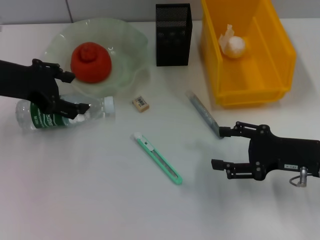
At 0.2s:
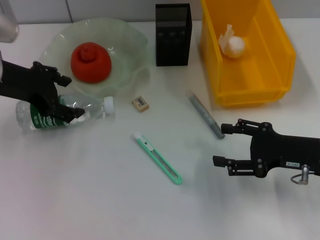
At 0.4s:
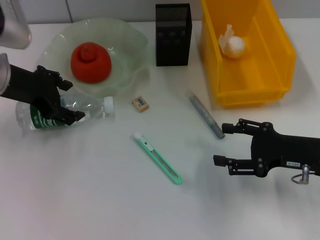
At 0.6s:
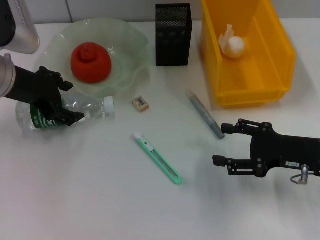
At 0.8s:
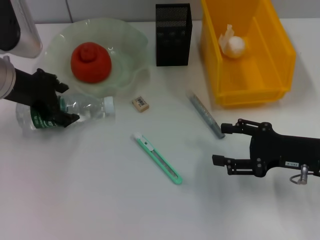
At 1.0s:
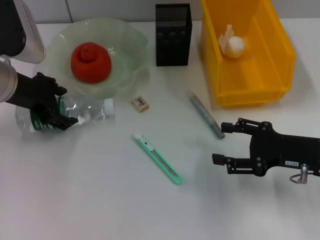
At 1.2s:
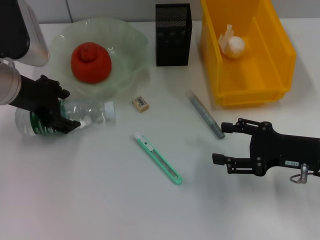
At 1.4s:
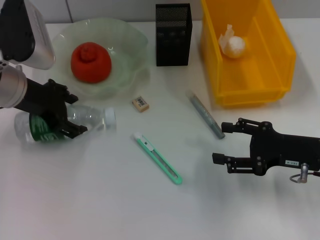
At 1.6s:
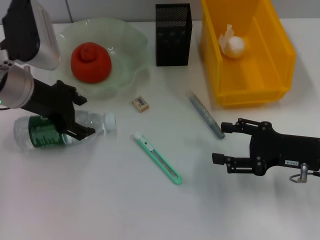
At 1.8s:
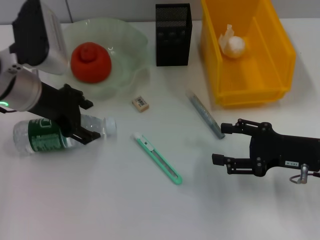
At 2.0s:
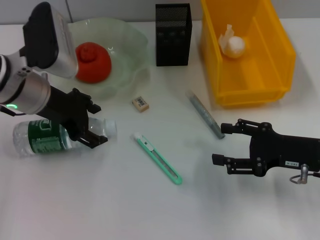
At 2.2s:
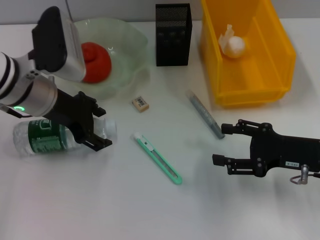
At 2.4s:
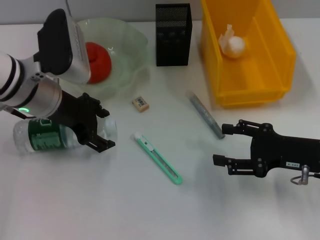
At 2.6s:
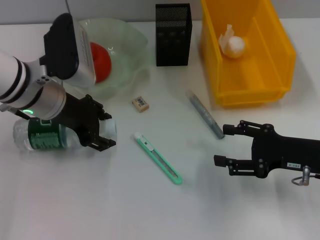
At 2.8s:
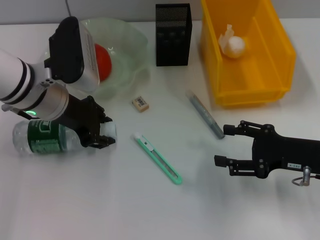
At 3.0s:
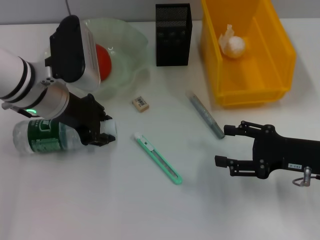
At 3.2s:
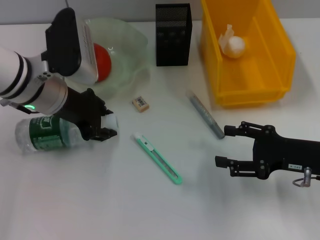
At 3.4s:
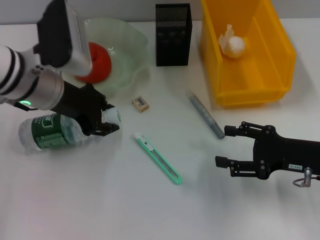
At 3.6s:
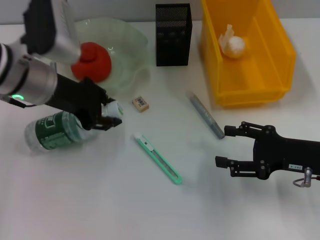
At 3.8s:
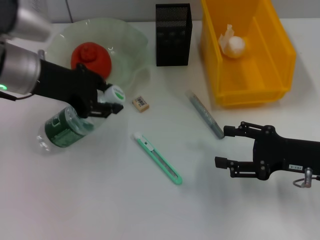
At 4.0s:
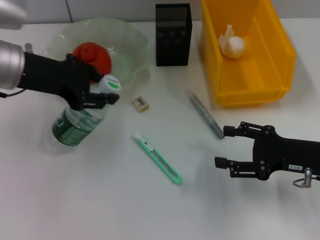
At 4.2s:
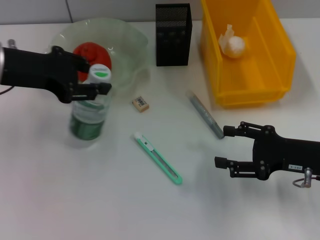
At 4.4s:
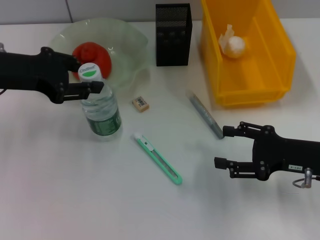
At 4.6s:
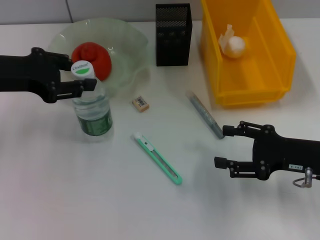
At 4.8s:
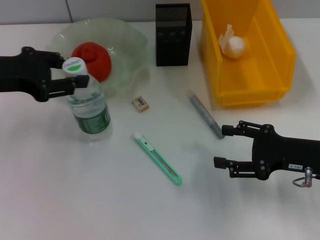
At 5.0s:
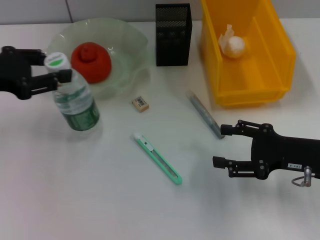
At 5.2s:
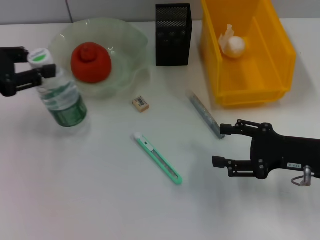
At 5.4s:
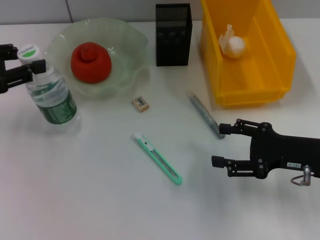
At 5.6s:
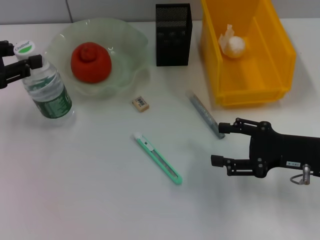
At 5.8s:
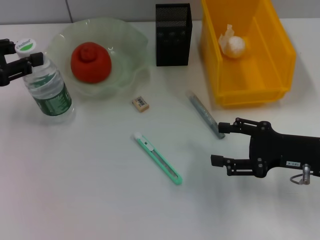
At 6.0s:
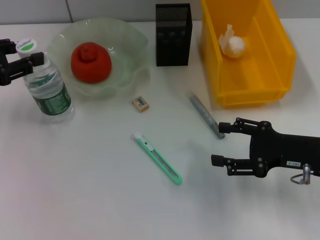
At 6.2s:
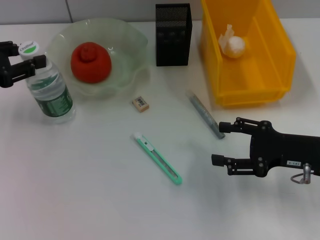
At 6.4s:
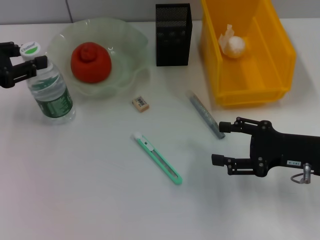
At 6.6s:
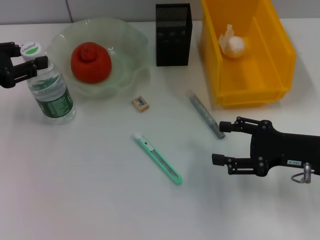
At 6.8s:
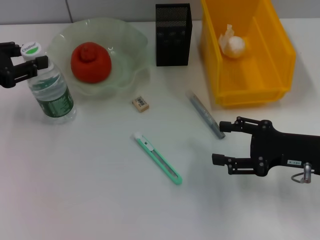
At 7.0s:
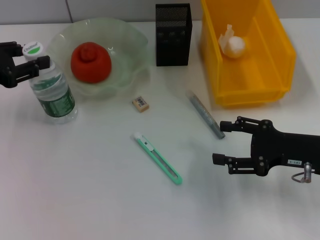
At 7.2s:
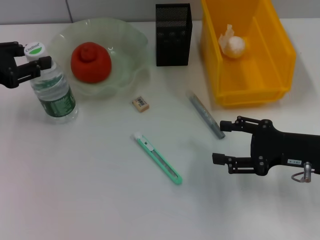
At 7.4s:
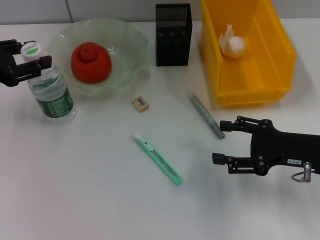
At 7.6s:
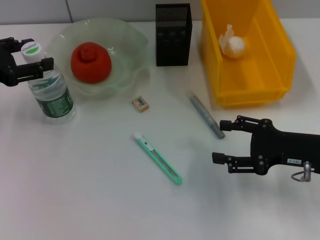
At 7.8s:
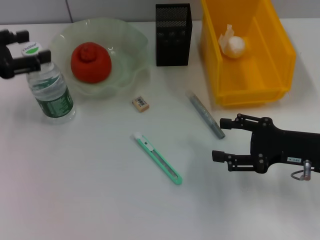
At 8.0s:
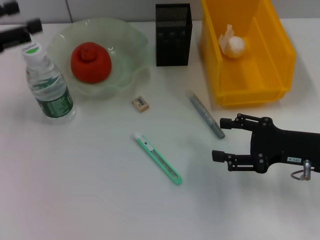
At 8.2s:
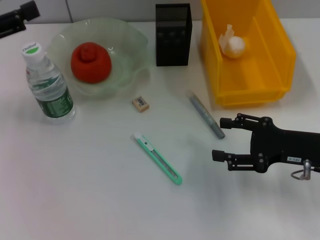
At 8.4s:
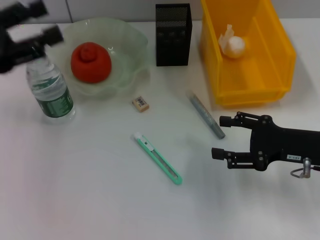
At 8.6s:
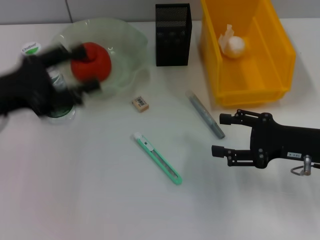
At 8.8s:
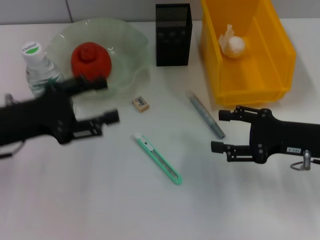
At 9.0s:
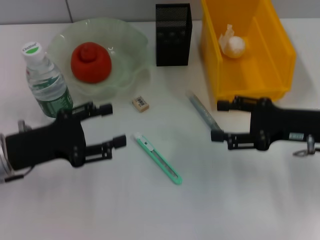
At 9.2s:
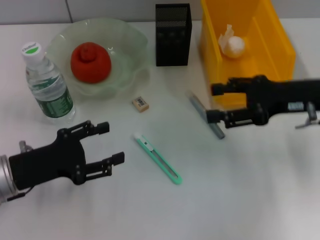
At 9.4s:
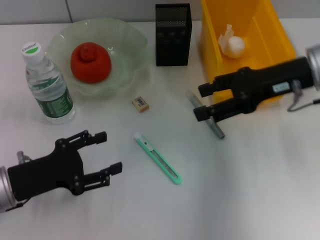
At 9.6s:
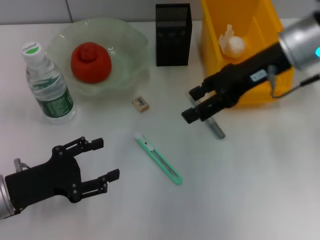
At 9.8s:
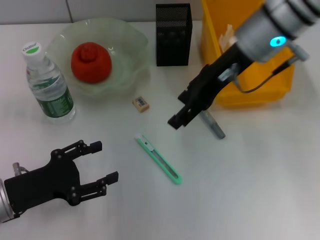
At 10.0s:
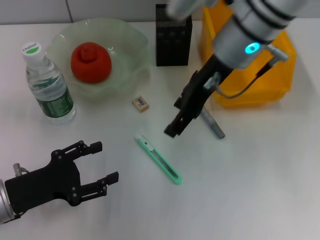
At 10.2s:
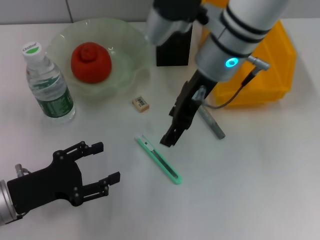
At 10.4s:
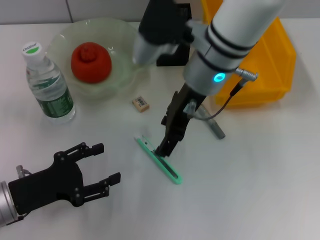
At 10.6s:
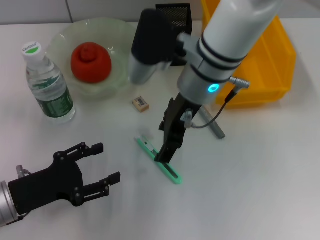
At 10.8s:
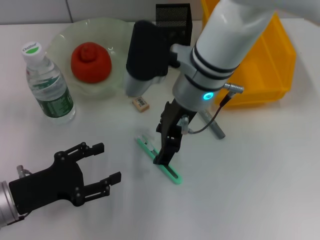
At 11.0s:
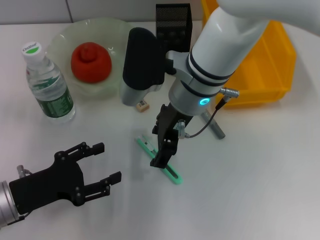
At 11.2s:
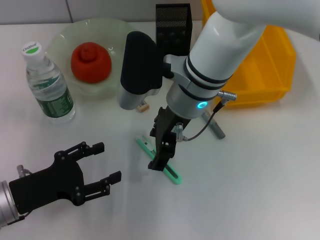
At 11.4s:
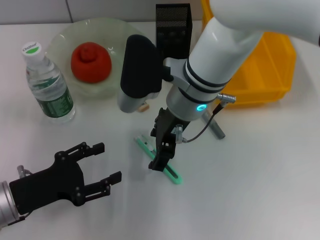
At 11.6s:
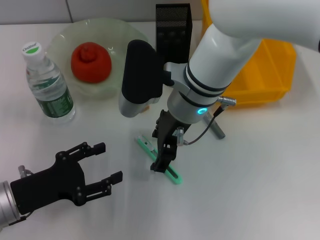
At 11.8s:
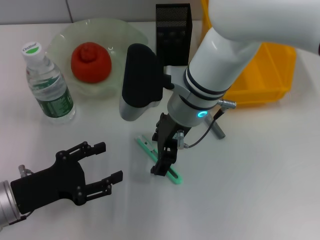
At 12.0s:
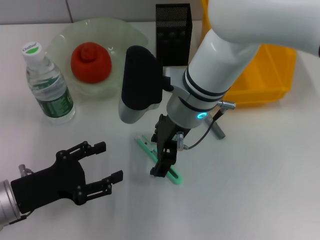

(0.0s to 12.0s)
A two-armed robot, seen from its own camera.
Step, 0.0s - 2.8s: Grab the water bottle with the left hand.
Step, 3.2s - 7.8s: Place the water bottle on the table with the left hand.
0.0s - 1.6s: The left gripper changes place by approximately 5 cm.
1.6s - 3.0s: The left gripper closes its fingers.
3.0s - 4.4s: The left gripper heads to the left and upward, covering approximately 10 cm.
4.4s - 6.0s: The left gripper travels to the left by approximately 10 cm.
6.0s - 7.6s: Neither gripper changes place.
7.6s - 9.0s: The left gripper travels downward, to the right and backward by some 10 cm.
9.0s - 10.4s: The left gripper moves downward and backward, roughly 5 cm. Meanwhile the right gripper is displaced to the left and upward by roughly 25 cm.
10.4s - 12.0s: The right gripper changes place by roughly 5 cm.

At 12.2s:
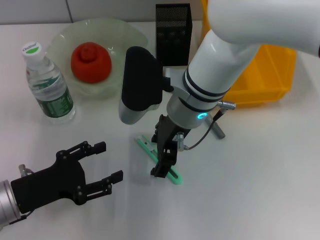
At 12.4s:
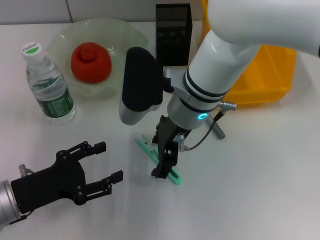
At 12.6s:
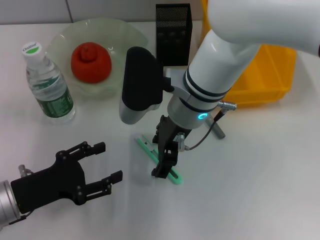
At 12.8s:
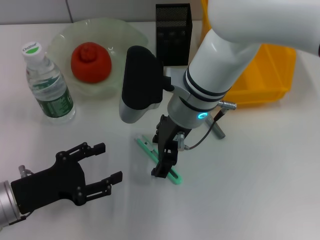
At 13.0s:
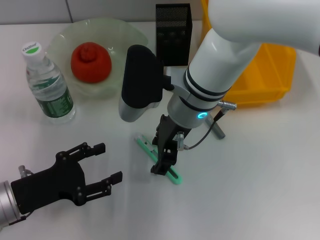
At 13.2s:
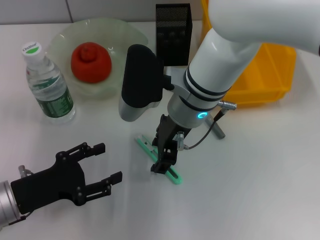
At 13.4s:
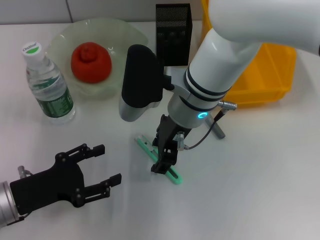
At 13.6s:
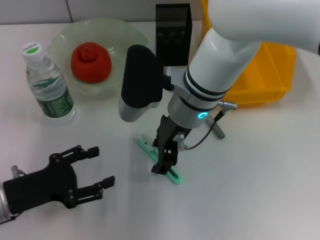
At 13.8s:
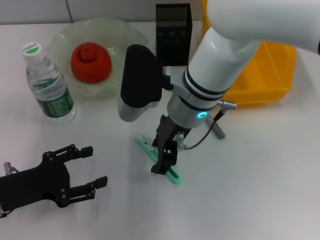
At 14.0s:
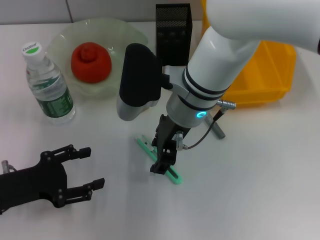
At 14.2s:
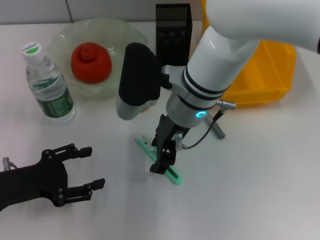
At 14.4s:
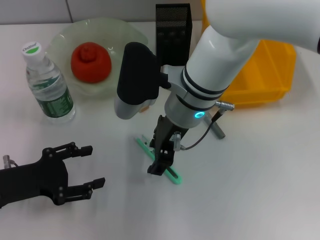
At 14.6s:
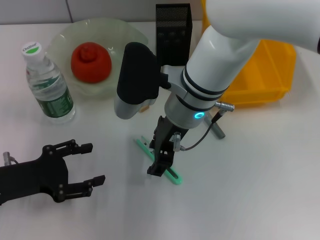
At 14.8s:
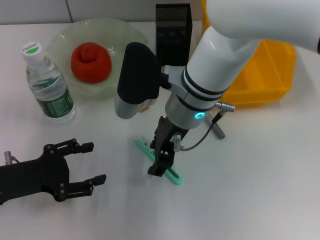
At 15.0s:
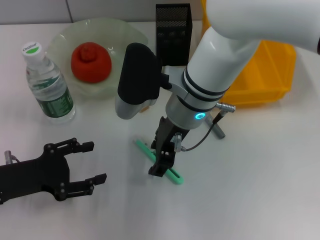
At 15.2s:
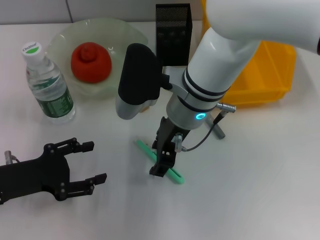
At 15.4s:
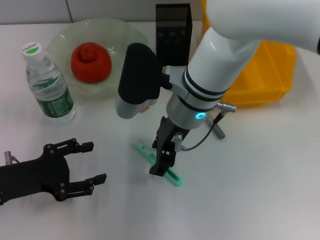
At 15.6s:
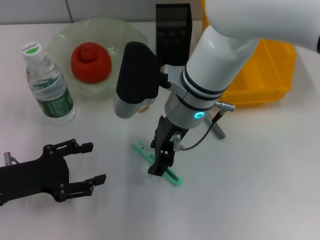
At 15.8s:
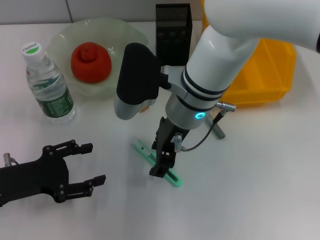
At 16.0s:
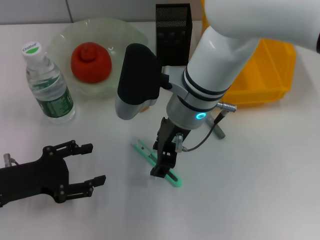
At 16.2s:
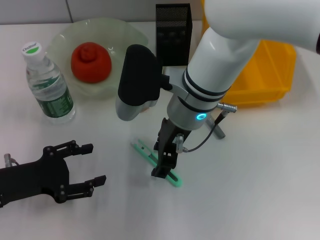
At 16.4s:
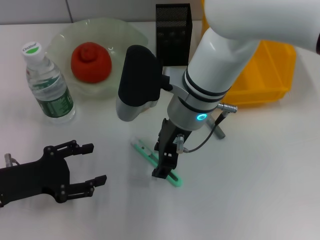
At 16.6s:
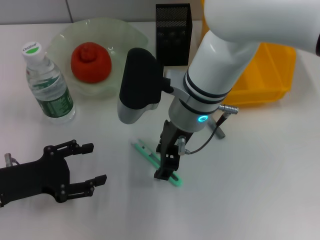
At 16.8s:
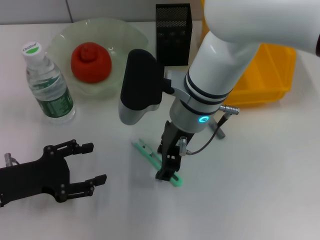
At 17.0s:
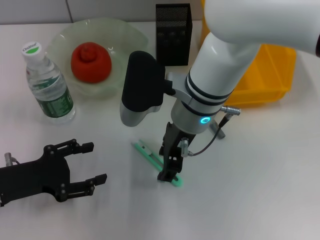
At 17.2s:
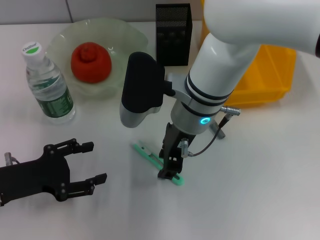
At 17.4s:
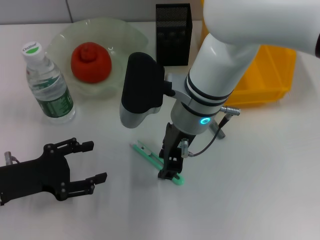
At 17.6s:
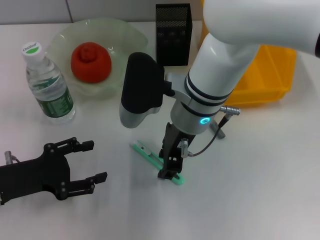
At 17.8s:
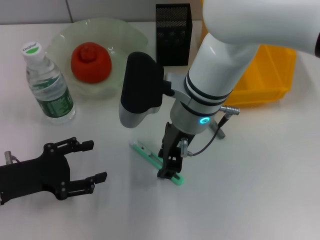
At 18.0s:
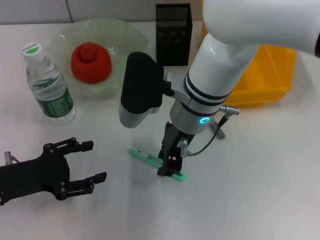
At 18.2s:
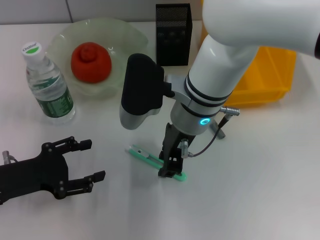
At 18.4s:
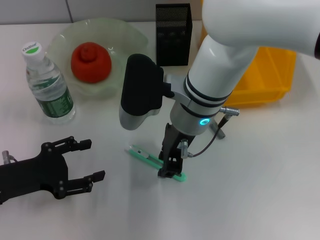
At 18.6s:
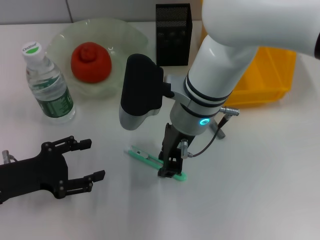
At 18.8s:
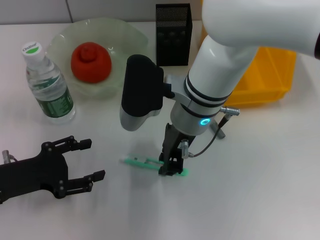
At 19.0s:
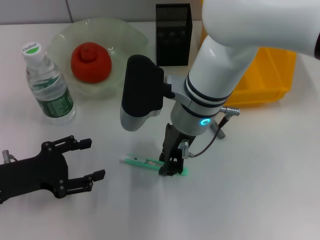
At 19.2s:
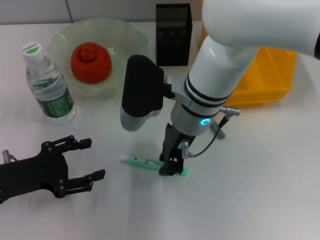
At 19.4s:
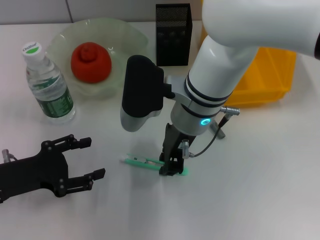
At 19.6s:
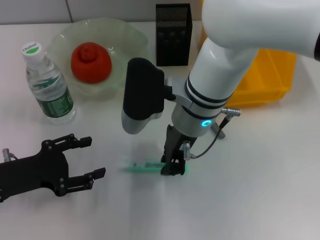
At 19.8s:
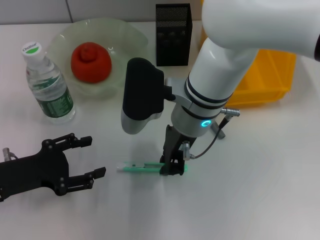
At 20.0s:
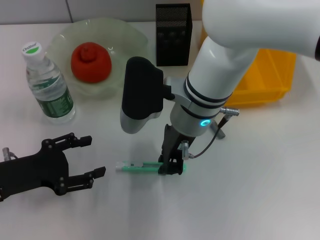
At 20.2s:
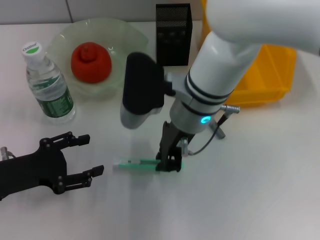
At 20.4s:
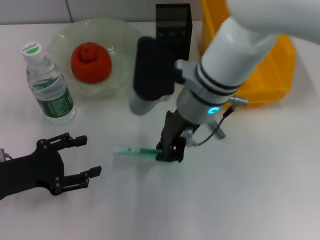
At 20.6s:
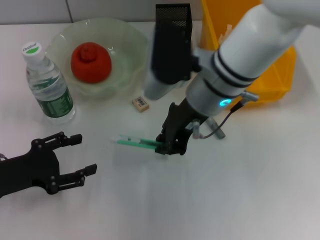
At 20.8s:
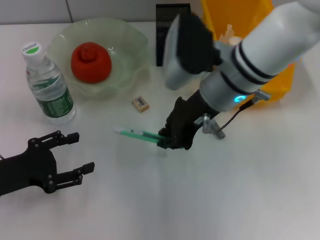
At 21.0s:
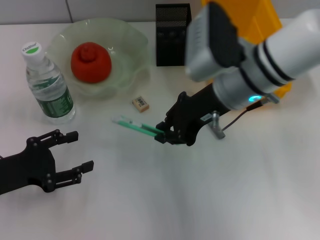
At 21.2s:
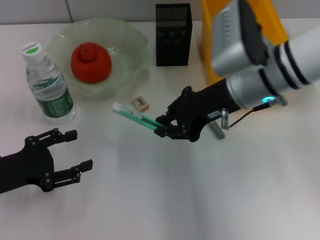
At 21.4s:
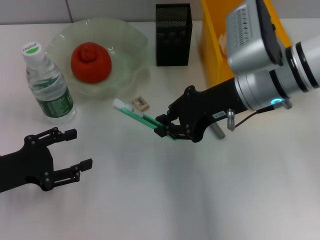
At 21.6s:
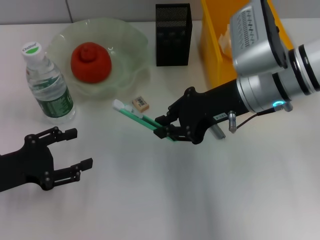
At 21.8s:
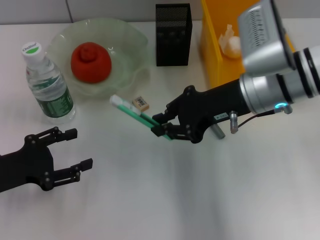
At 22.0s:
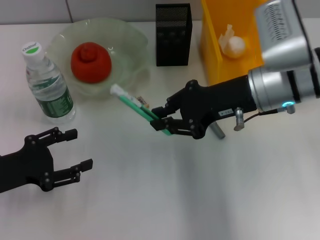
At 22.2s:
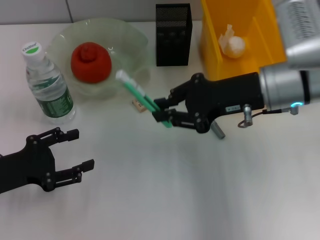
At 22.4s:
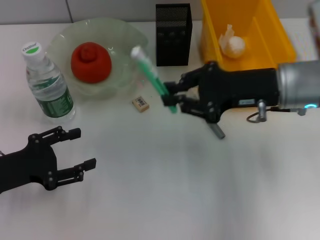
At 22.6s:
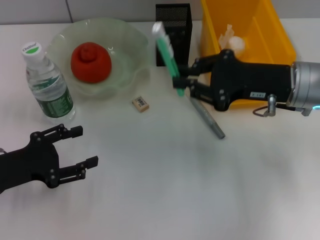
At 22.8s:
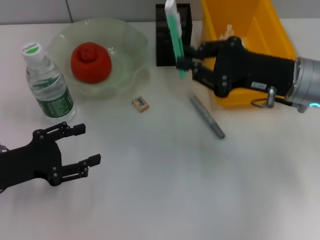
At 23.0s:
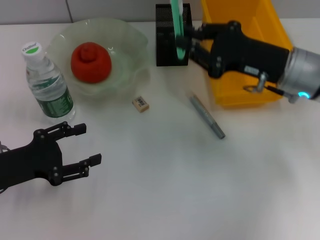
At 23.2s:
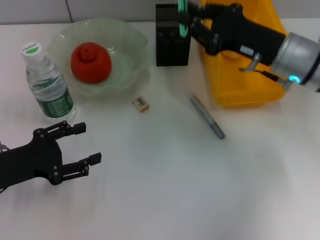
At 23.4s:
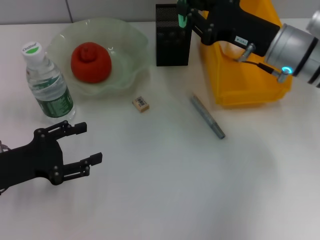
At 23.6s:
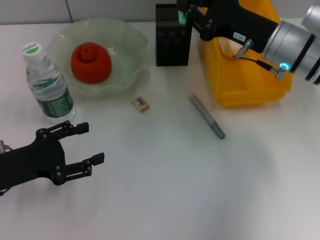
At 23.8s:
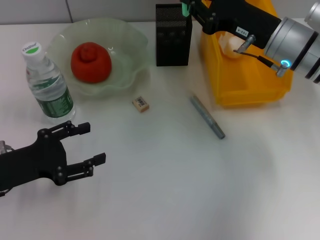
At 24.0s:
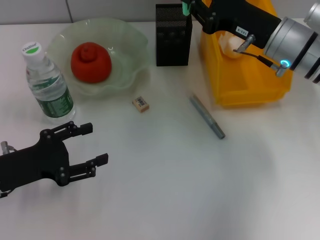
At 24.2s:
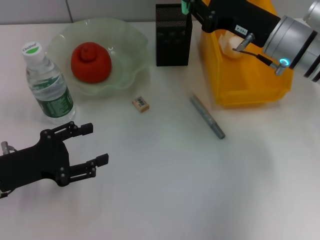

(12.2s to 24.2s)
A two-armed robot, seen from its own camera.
Step, 12.2s - 19.8s: Grab the blue utility knife with the right hand.
12.2s - 15.2s: There are only small adjustments of the grippers.
15.2s - 16.6s: Both grippers stay about where they are.
16.6s - 18.2s: The right gripper closes up.
18.2s - 19.8s: The two grippers keep their place.
19.8s - 21.2s: The right gripper travels to the right by some 10 cm.
21.2s - 22.6s: The right gripper shifts about 10 cm to the right.
22.6s - 24.2s: The right gripper shifts some 5 cm forward.
